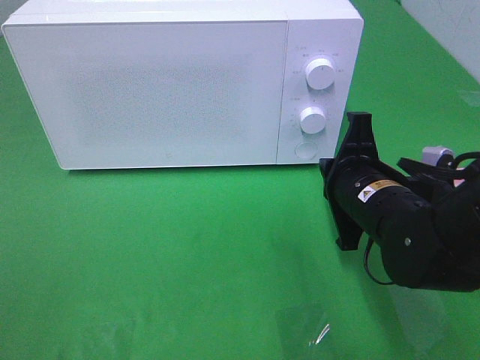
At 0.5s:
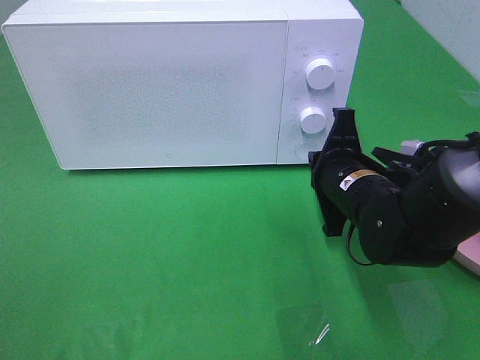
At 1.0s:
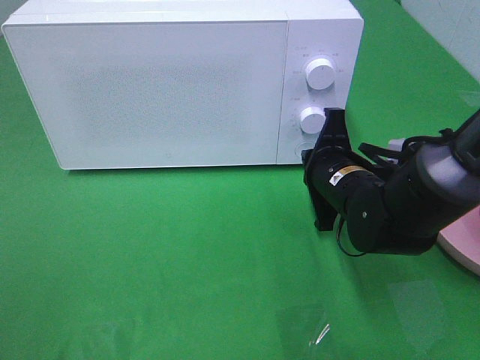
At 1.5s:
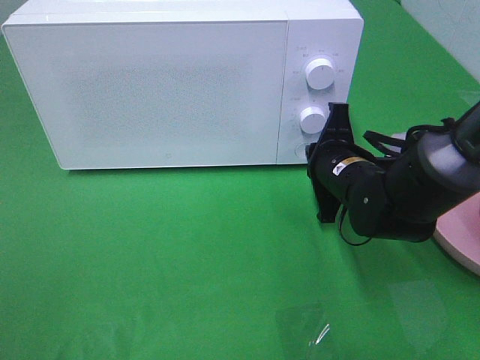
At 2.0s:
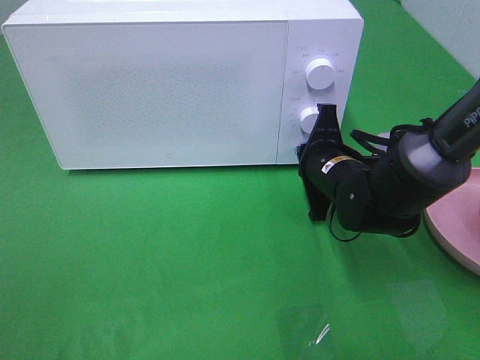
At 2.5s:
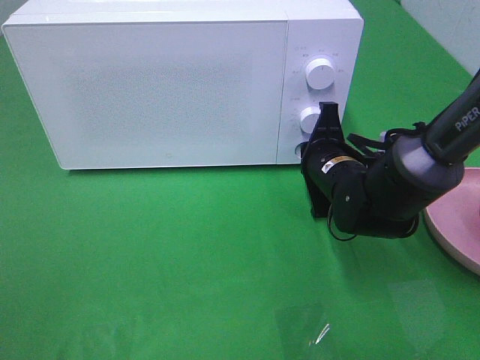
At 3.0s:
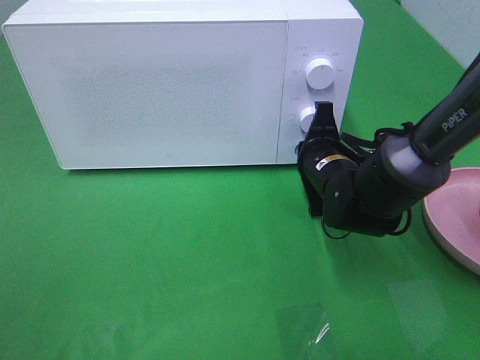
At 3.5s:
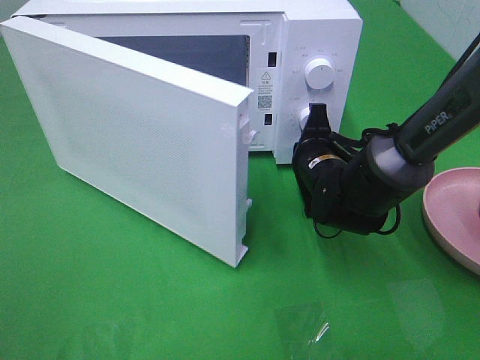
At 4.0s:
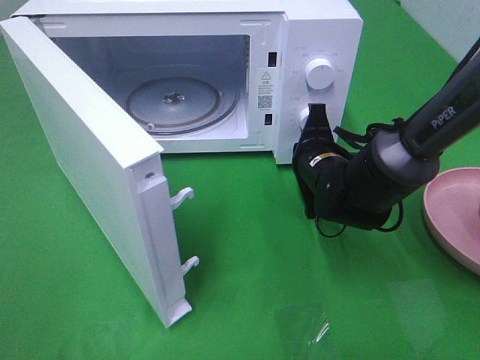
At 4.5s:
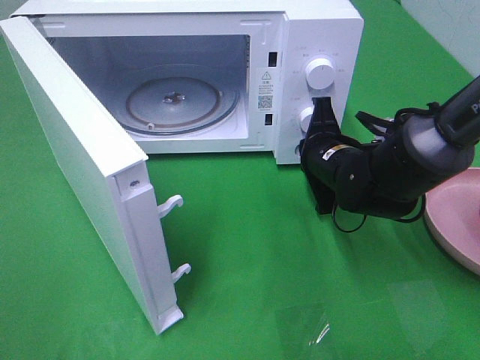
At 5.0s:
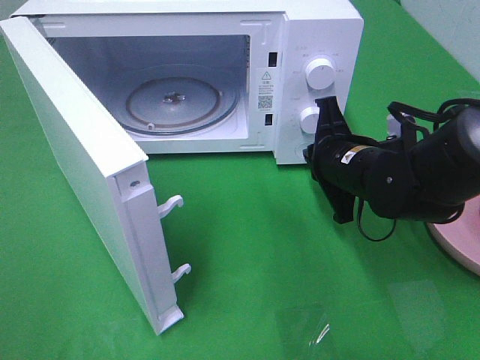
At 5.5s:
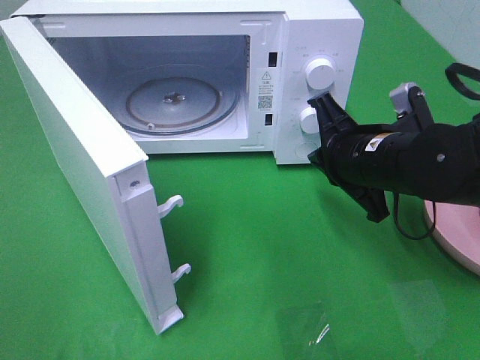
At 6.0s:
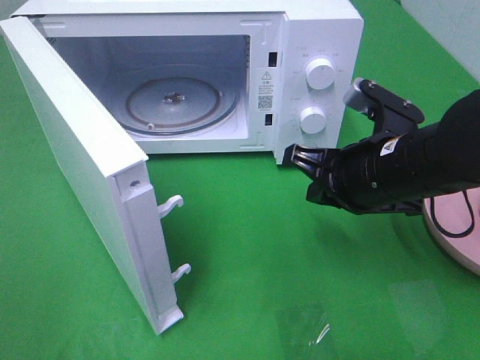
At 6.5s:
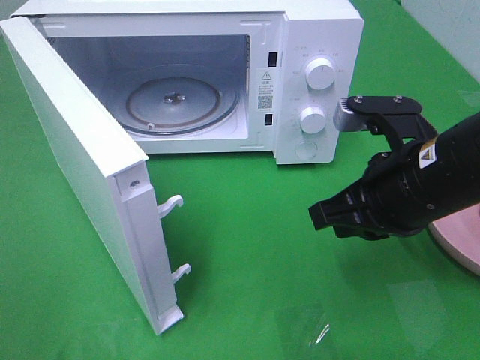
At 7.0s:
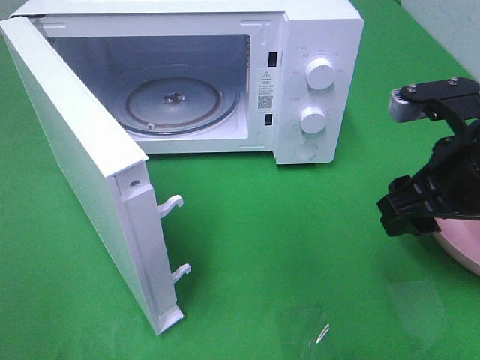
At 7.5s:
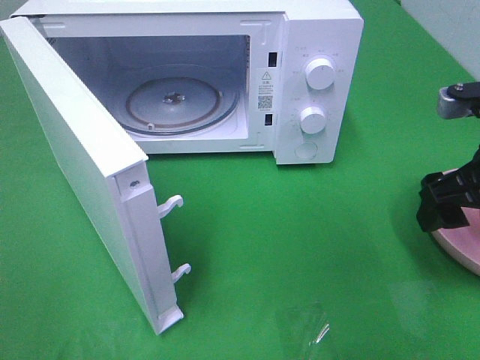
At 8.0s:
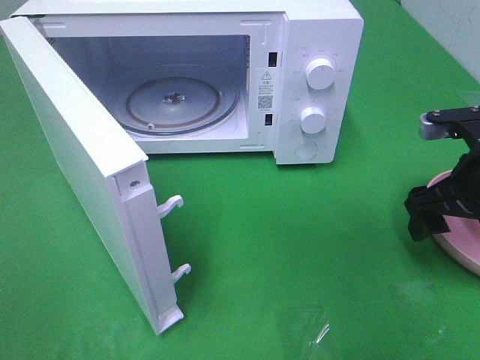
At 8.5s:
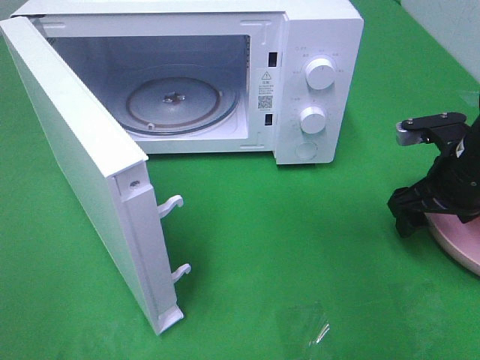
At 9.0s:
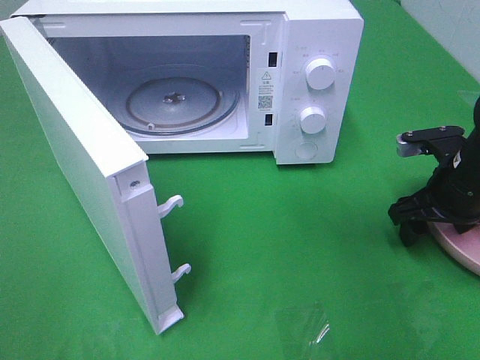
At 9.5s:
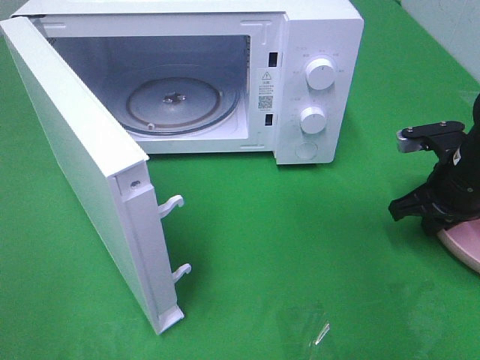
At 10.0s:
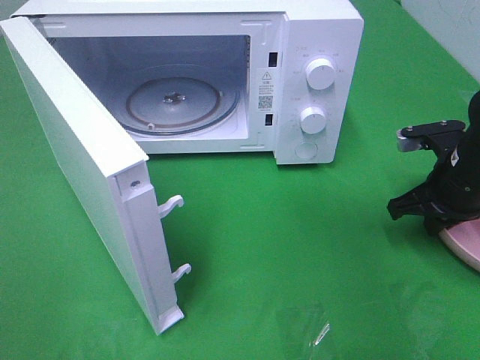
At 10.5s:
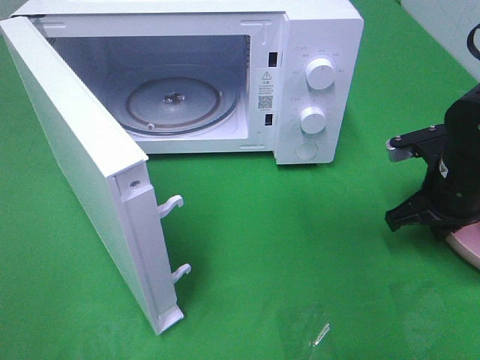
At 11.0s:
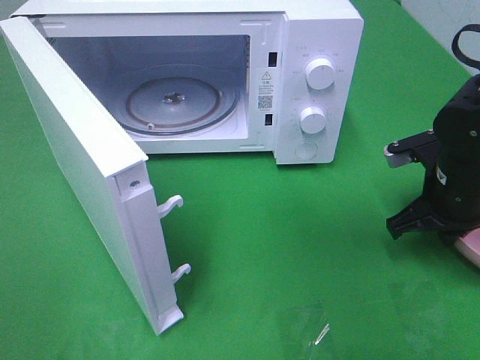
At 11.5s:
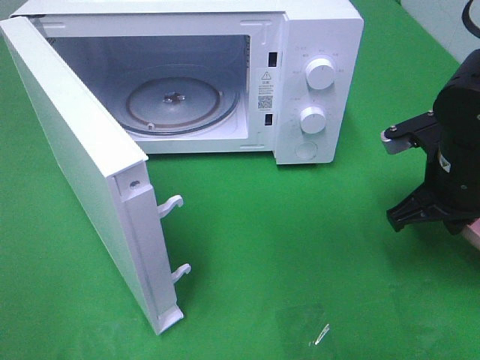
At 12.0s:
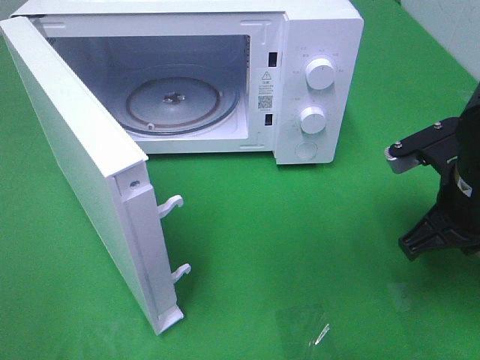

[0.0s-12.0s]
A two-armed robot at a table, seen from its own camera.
Task of the whole recording: Heat the burger.
Step, 0.0s to 4.5s: Right hand: press the switch.
Step, 5.0s to 9.5s: Right hand: grab the plate with the hamburger.
0.0s to 2.0s: The right gripper heads forward, covering about 10 cm.
4.0s to 6.0s: The right gripper goes about 15 cm backward and upward.
6.0s to 8.0s: The right gripper goes about 10 cm to the right, and opens up.
8.0s to 10.0s: The right gripper changes place by about 5 cm, and closes its fingers.
10.0s to 12.0s: The right gripper heads backward, upward and to the left, covering some 10 cm.

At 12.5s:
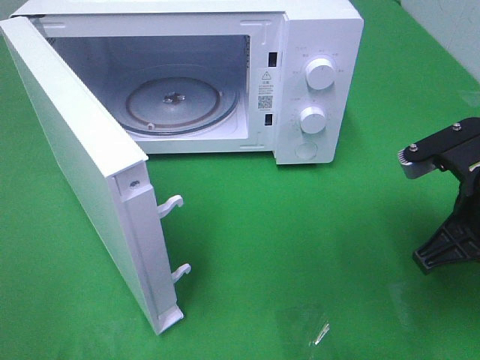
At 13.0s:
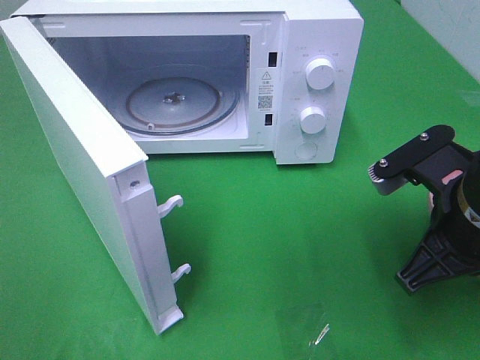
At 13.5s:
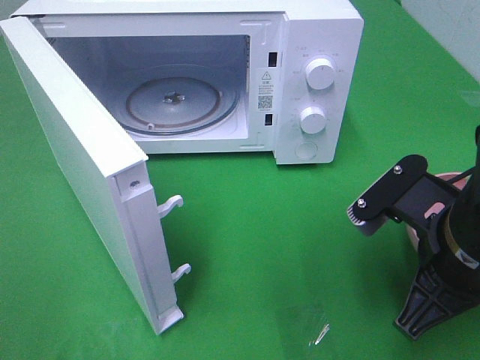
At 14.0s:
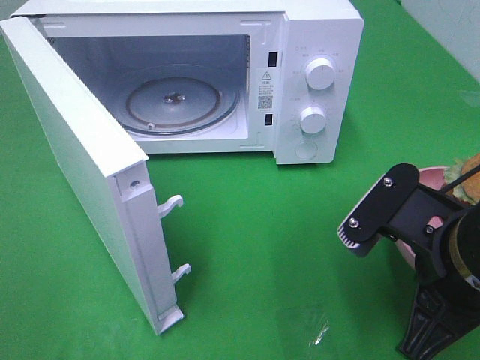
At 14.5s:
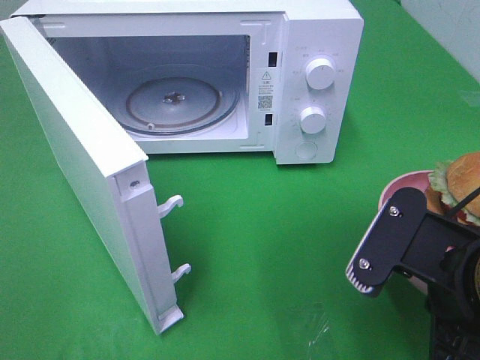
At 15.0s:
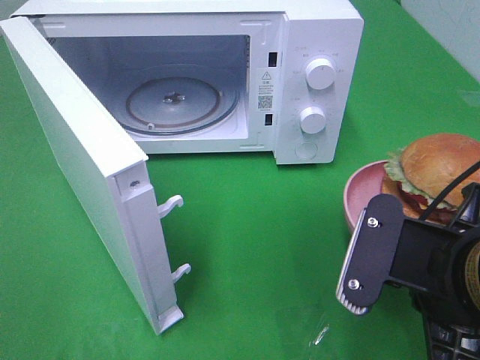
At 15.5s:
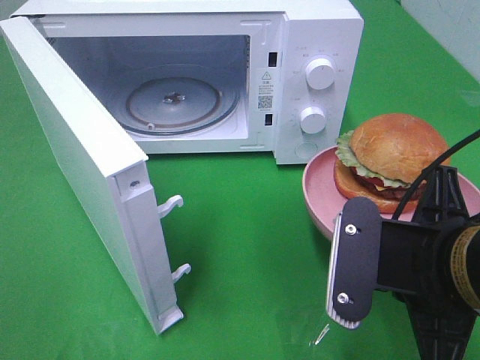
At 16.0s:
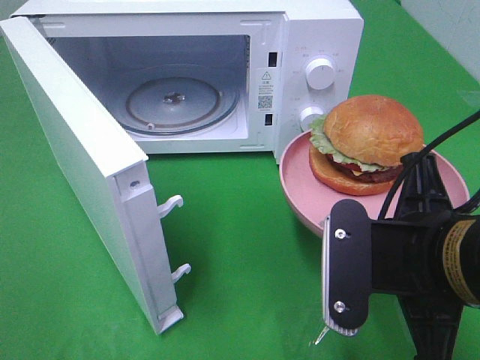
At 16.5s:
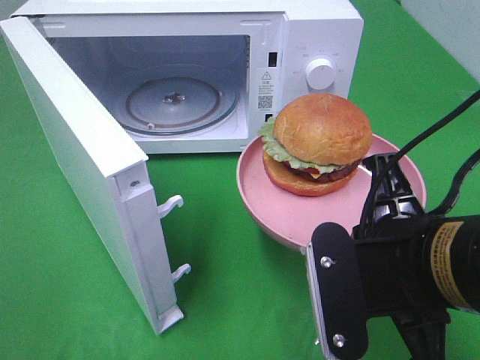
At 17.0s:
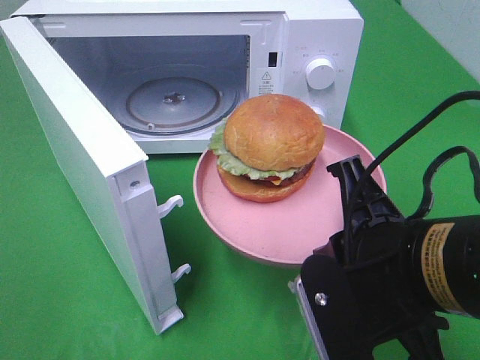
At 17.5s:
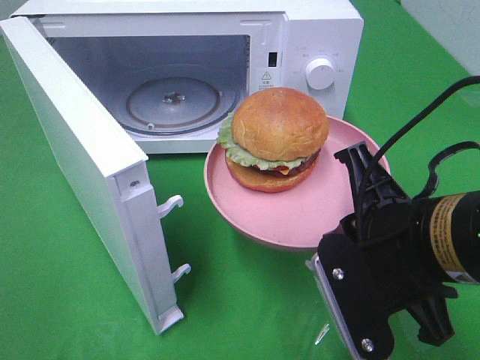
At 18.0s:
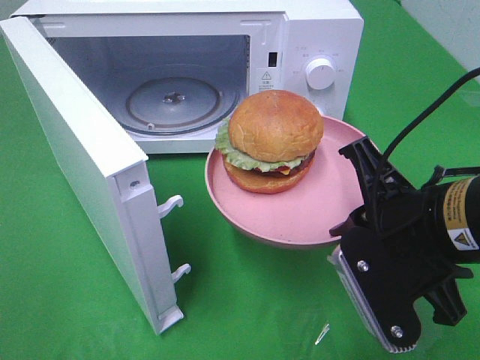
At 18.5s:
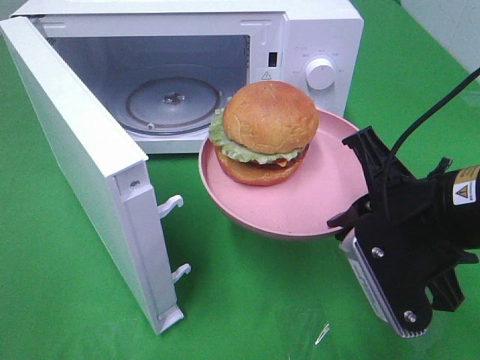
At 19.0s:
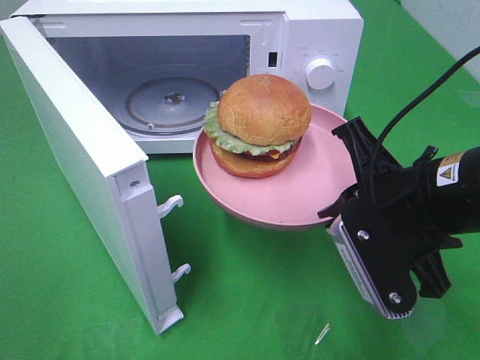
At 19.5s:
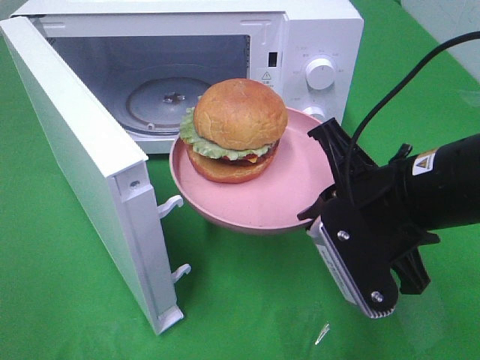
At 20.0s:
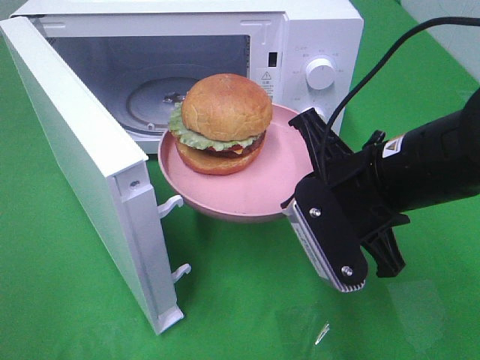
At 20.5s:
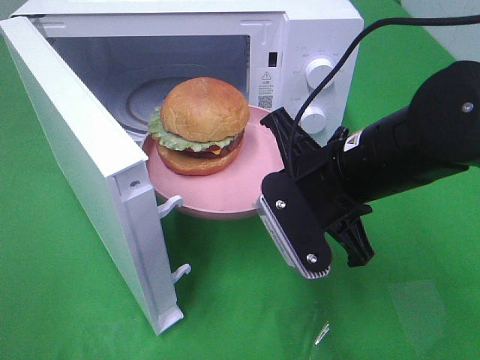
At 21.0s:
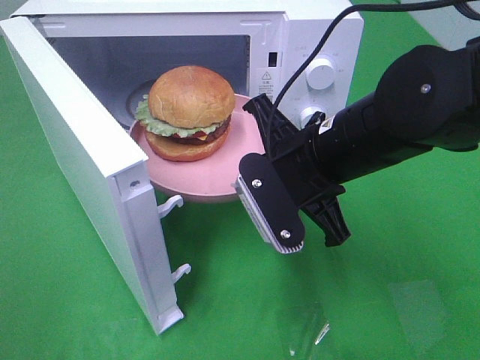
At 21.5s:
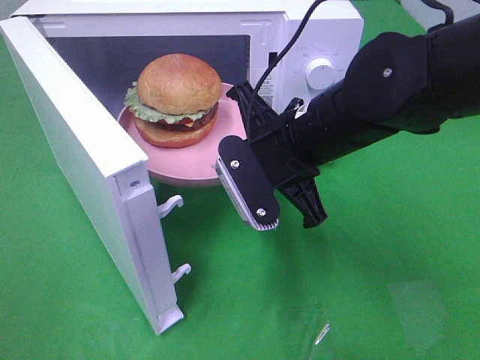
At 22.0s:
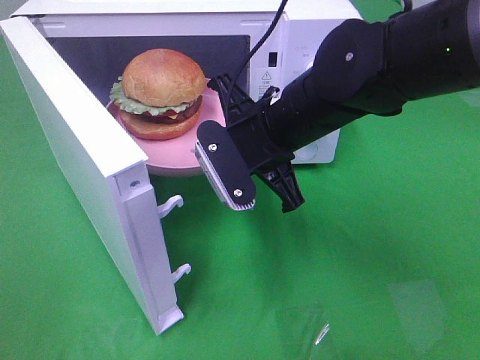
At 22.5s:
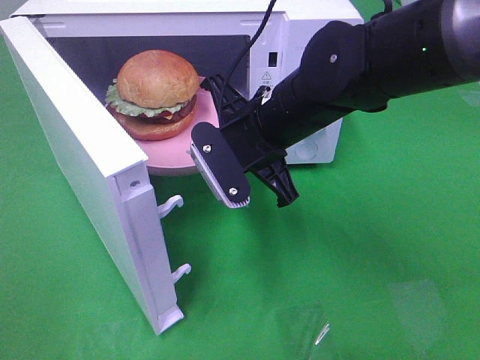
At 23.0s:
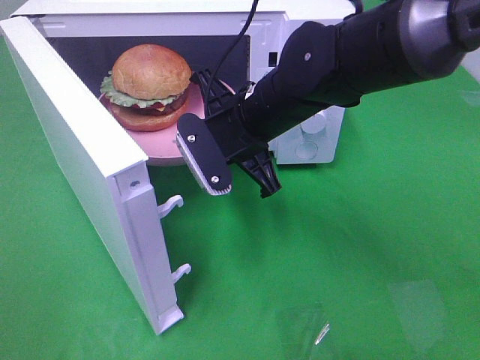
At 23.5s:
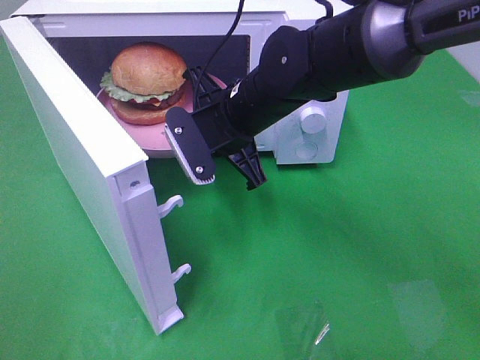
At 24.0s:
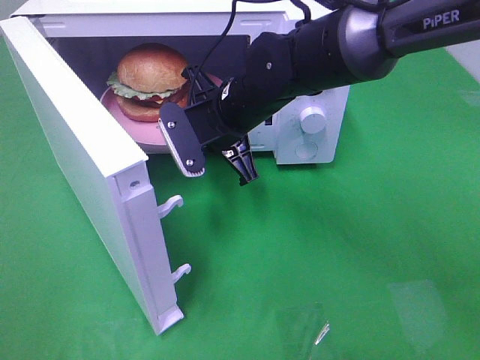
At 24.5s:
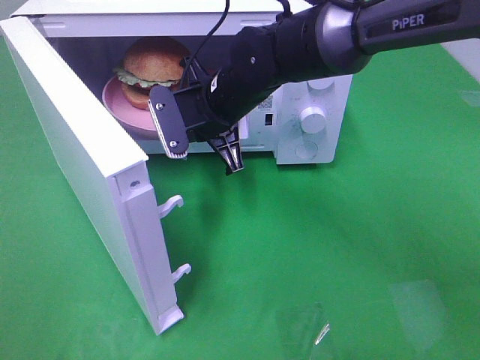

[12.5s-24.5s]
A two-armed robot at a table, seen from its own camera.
Task of the whole recording: Heat the burger.
12.5s to 14.5s: The right gripper heads backward and to the left, covering some 10 cm.
16.5s to 18.5s: The right gripper goes about 5 cm forward.
18.5s to 20.5s: The right gripper shifts approximately 10 cm to the left and forward.
20.5s to 22.5s: The right gripper moves forward and to the left, approximately 10 cm.
22.5s to 24.5s: The right gripper heads forward and to the left, covering roughly 10 cm.

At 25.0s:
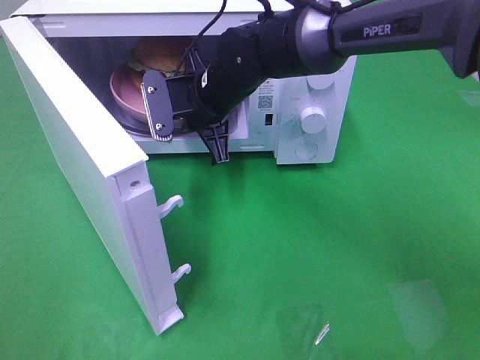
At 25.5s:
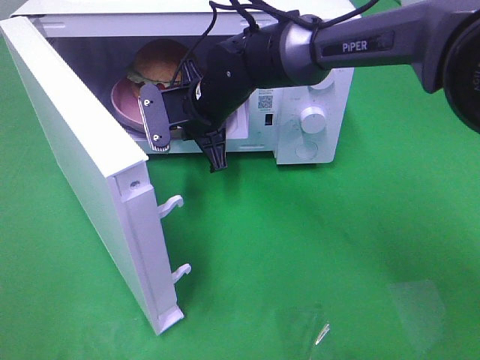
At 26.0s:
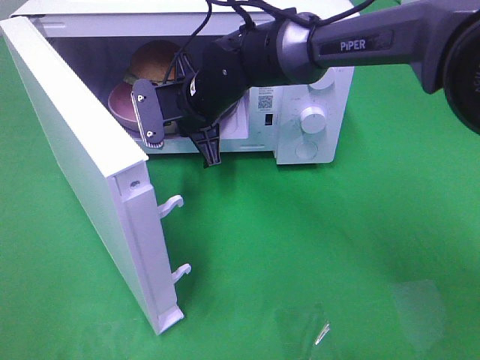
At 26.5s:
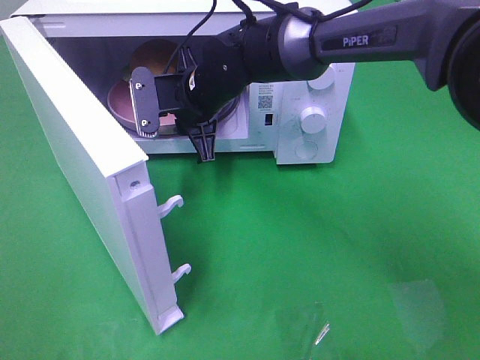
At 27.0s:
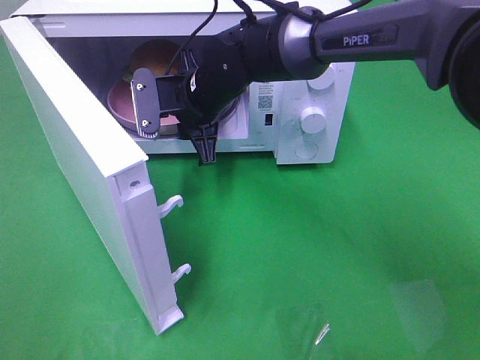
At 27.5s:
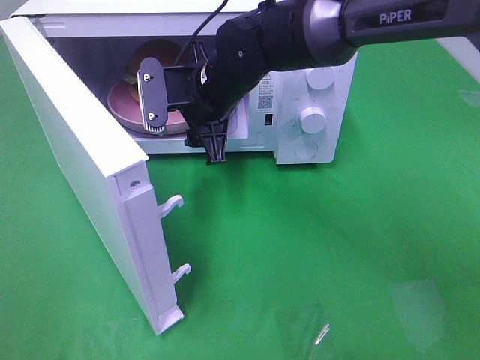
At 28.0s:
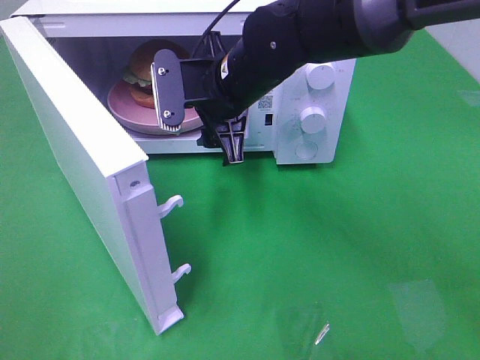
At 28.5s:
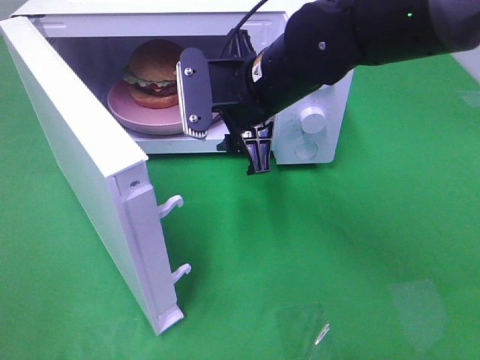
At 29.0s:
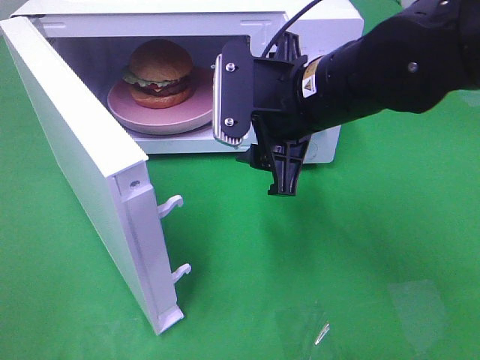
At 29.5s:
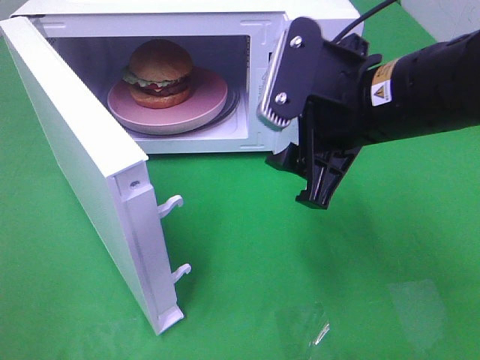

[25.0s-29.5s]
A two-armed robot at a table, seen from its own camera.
Task of the whole recording: Heat the burger.
25.0s to 27.0s: The right gripper opens up.
27.0s to 29.5s: The right gripper goes approximately 25 cm backward, to the right and upward.
